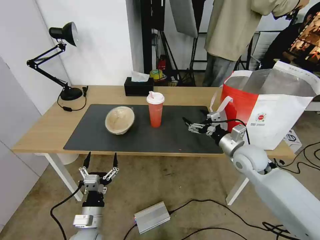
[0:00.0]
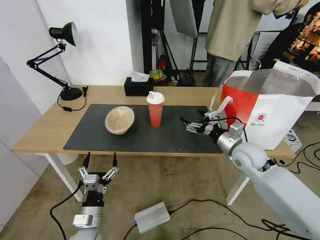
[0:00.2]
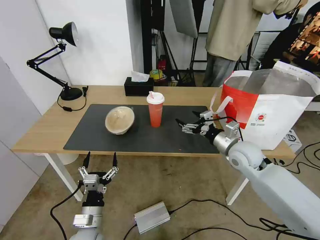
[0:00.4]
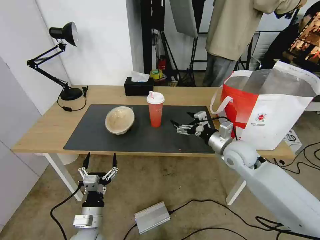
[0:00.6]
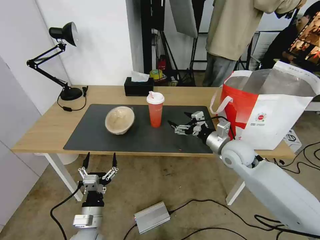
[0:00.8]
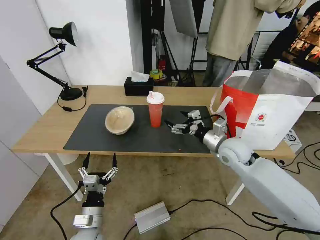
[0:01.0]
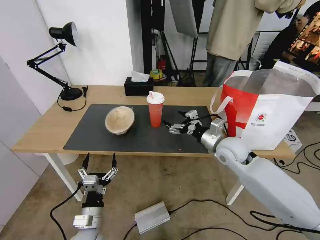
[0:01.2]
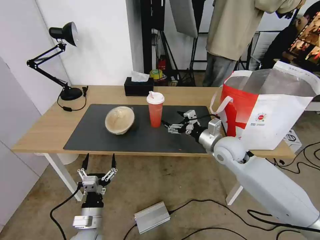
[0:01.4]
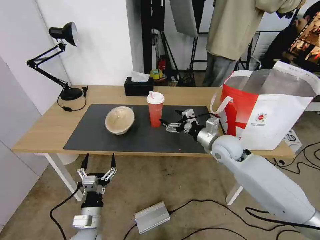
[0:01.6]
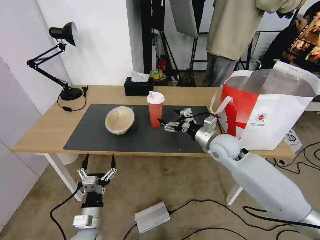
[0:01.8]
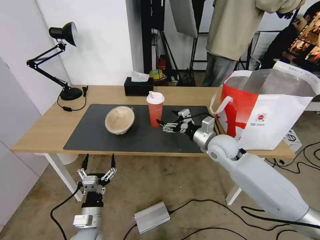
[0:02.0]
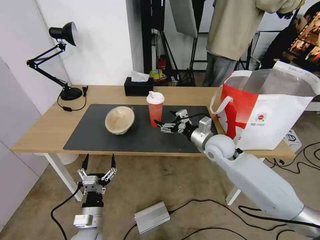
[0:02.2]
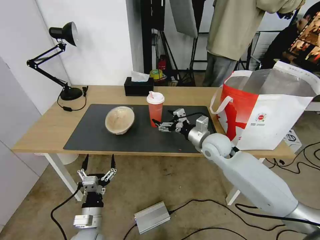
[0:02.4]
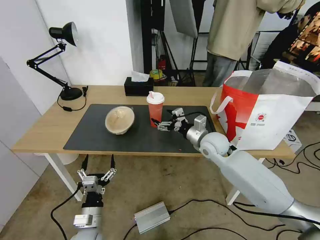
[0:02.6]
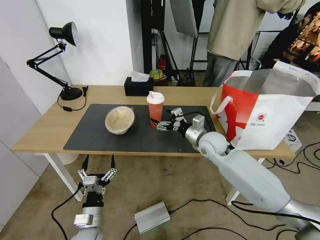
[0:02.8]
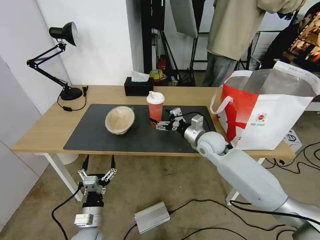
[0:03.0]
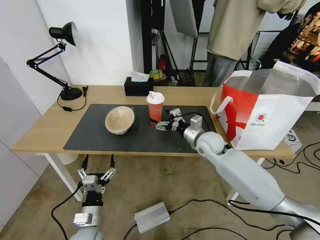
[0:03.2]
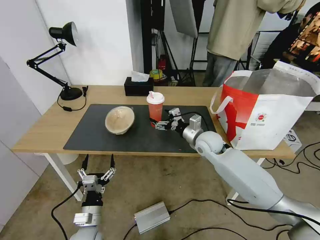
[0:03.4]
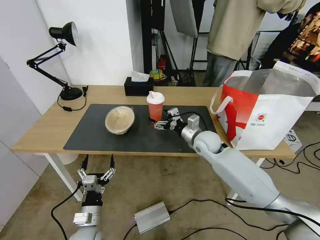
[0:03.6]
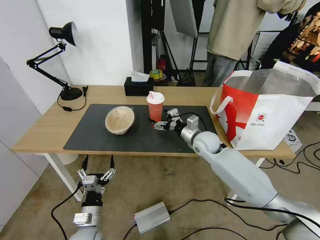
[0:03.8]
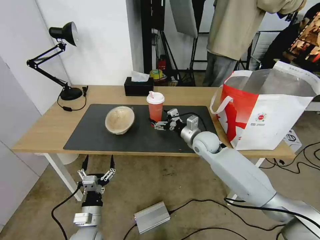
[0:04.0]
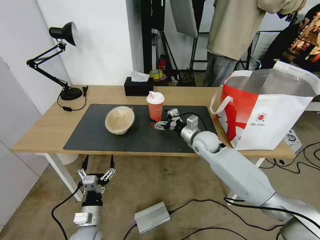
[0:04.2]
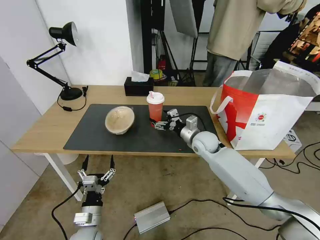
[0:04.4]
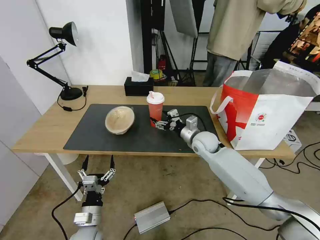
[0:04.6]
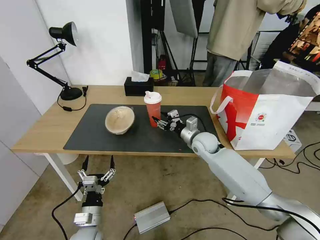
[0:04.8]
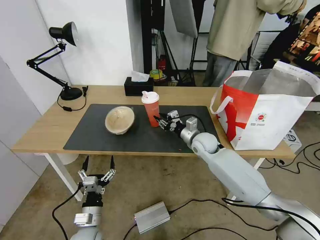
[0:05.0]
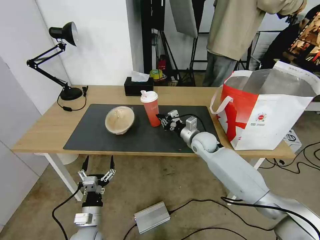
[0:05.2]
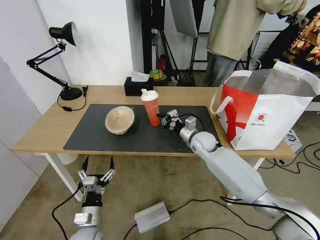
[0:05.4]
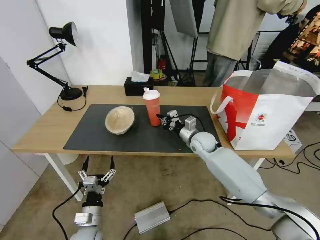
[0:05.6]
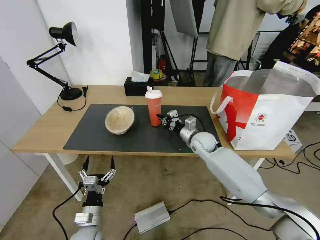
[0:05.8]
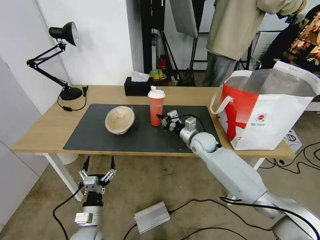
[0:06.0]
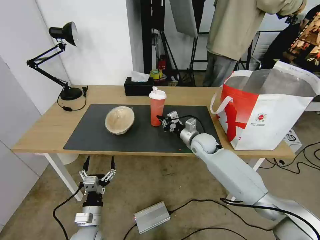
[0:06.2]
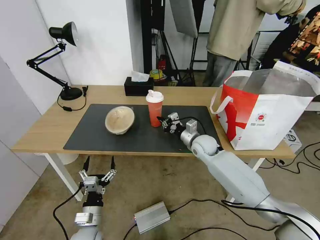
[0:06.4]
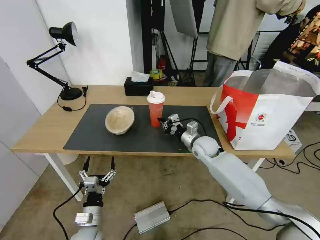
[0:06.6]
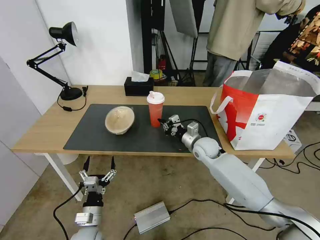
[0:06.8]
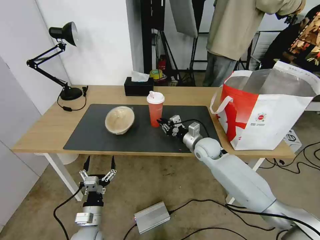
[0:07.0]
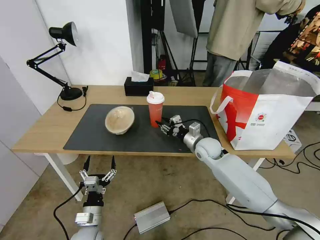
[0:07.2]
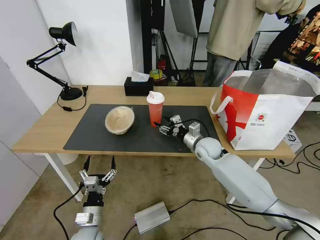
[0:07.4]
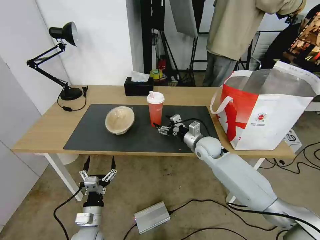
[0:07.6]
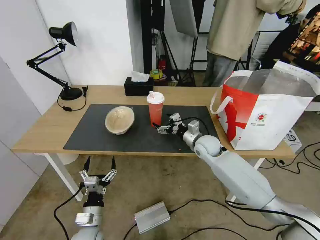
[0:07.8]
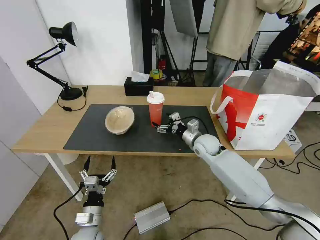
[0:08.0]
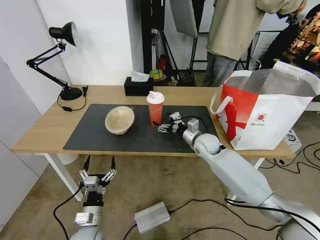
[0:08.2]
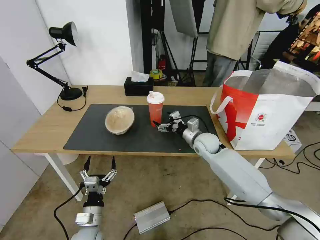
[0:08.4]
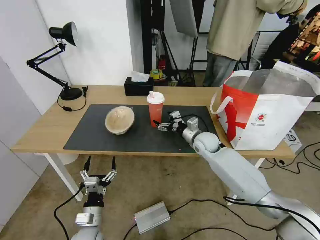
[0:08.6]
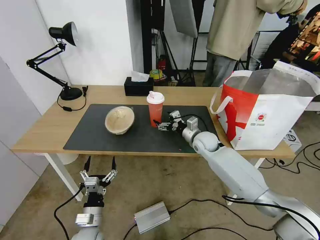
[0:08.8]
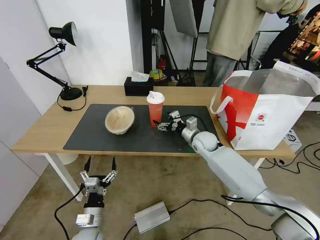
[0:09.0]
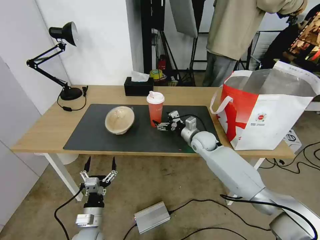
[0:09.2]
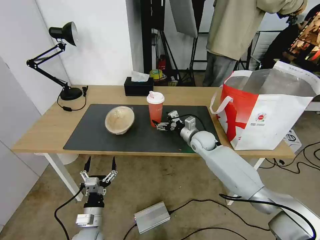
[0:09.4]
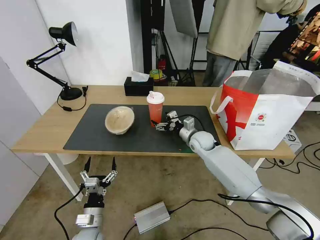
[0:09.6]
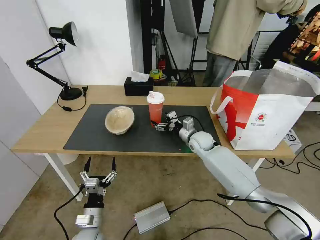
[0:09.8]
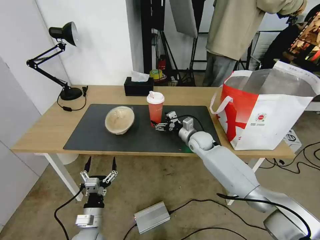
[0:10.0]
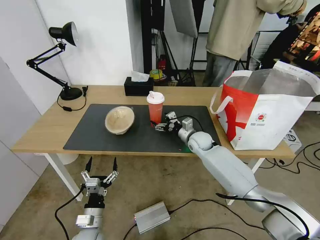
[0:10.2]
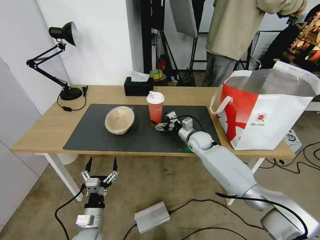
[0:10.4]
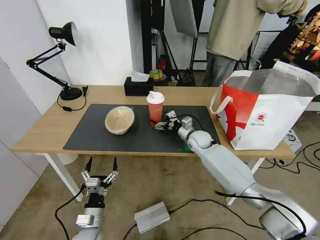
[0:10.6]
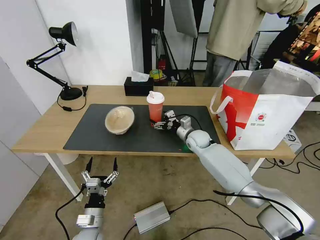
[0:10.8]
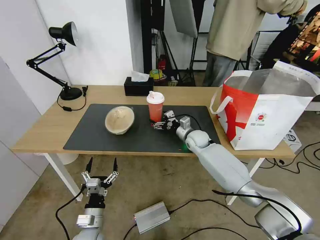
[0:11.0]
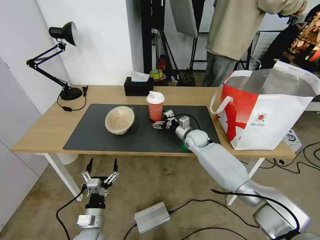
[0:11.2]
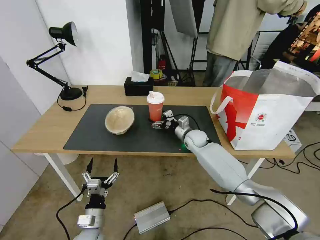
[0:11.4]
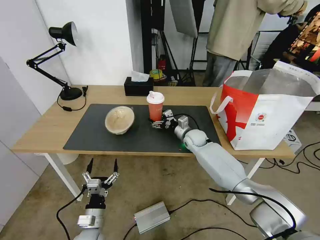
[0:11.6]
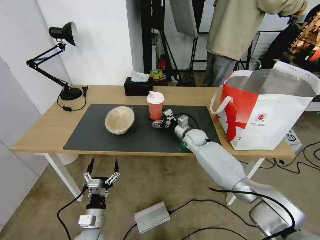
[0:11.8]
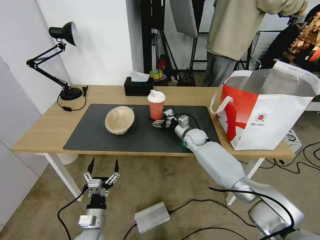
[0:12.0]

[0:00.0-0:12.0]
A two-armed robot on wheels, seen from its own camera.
Task of the whole recording: Pick up the trash from the table and place it into the takeout bag.
0:00.0 to 0:01.6: The right gripper moves to the left, roughly 5 cm.
0:01.6 to 0:03.0: The right gripper moves some 5 cm.
0:03.0 to 0:04.4: There are only small adjustments of the grippers.
0:04.4 to 0:06.0: The right gripper closes up.
0:06.0 to 0:07.6: The right gripper opens up.
0:07.6 to 0:10.4: The grippers make only small movements.
0:10.4 to 0:12.0: The grippers stay close to where they were, moving slightly.

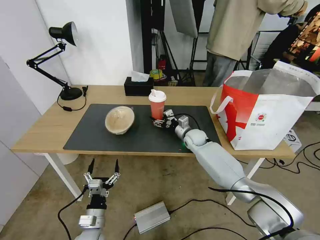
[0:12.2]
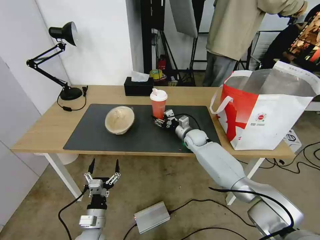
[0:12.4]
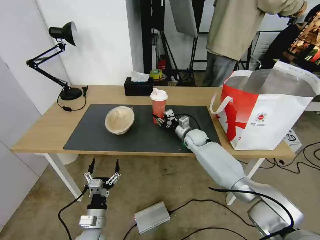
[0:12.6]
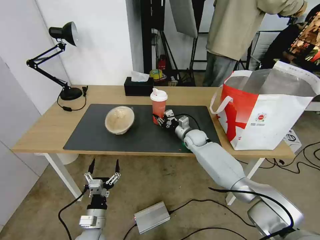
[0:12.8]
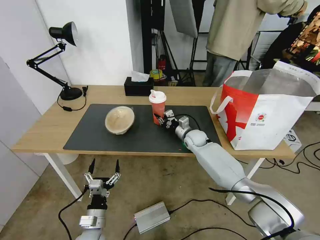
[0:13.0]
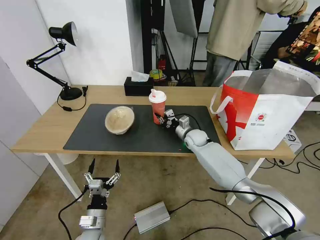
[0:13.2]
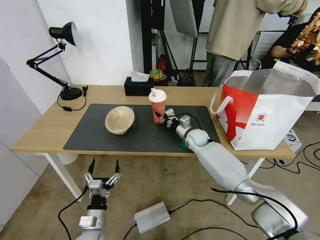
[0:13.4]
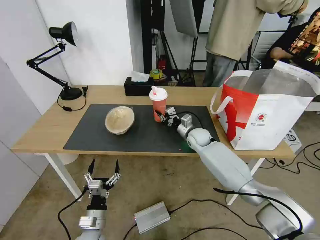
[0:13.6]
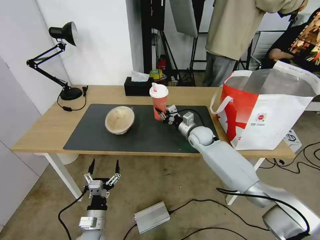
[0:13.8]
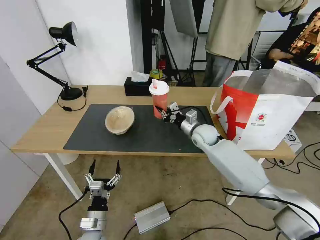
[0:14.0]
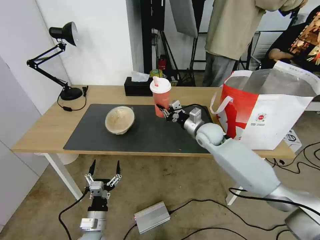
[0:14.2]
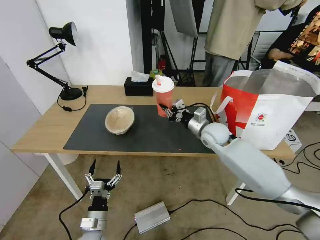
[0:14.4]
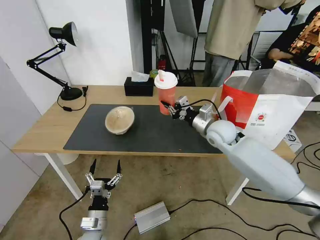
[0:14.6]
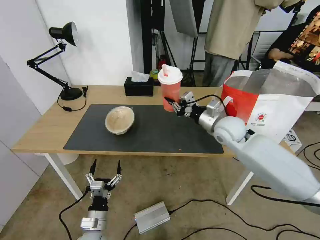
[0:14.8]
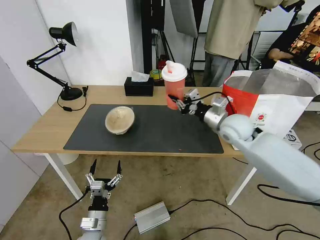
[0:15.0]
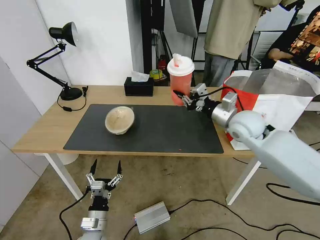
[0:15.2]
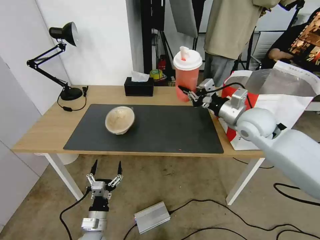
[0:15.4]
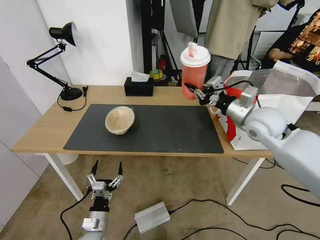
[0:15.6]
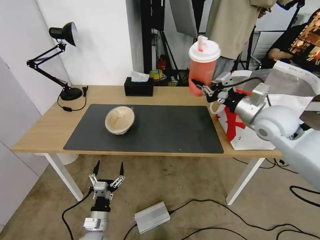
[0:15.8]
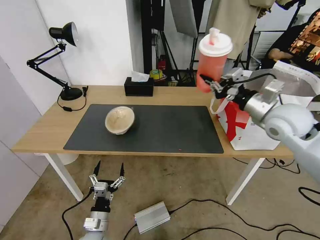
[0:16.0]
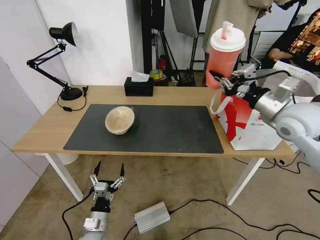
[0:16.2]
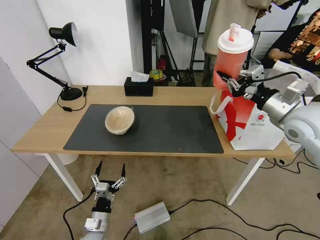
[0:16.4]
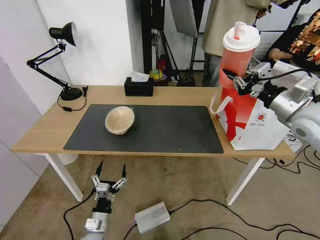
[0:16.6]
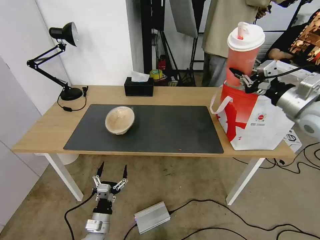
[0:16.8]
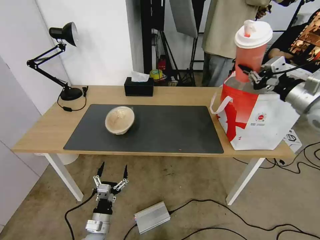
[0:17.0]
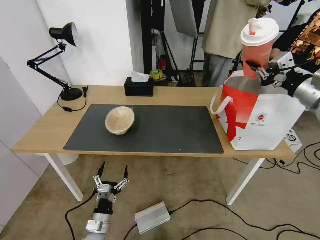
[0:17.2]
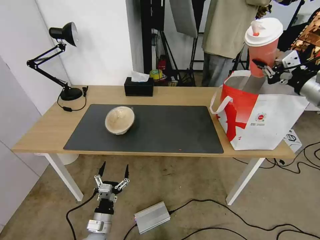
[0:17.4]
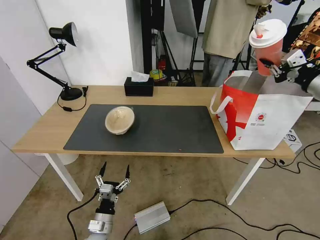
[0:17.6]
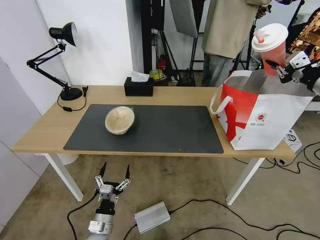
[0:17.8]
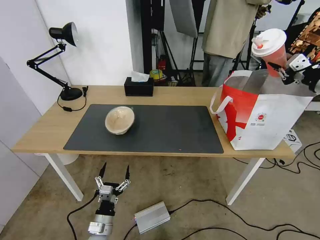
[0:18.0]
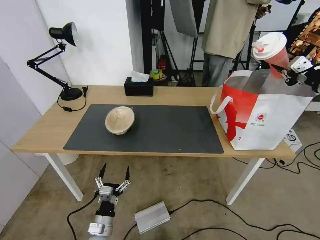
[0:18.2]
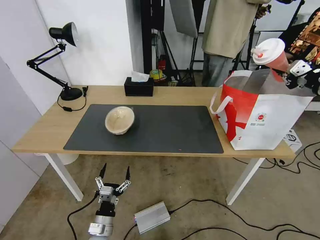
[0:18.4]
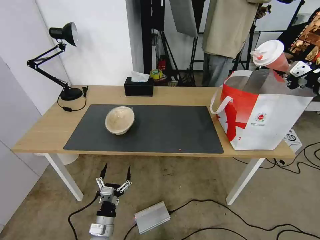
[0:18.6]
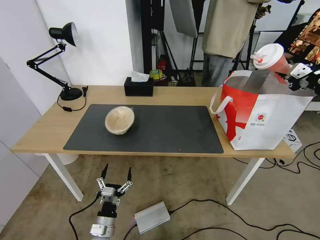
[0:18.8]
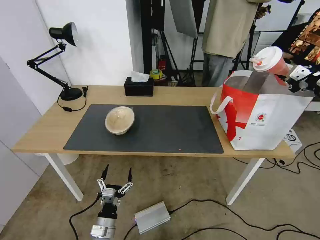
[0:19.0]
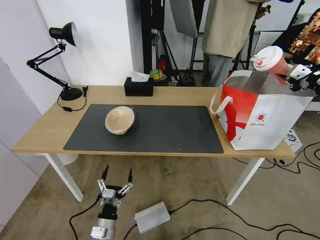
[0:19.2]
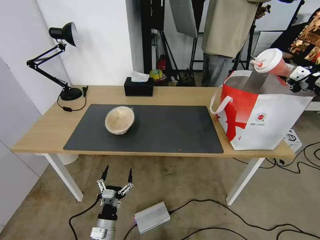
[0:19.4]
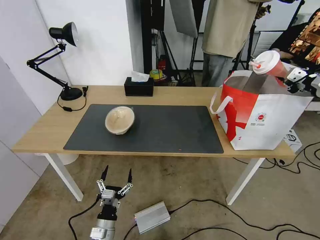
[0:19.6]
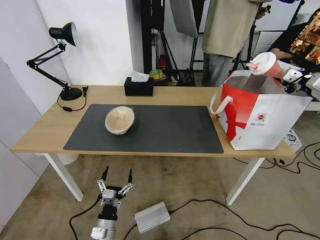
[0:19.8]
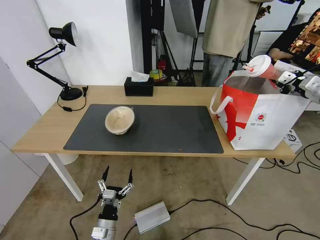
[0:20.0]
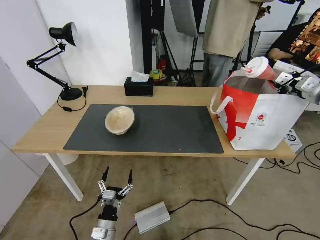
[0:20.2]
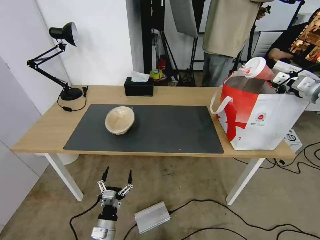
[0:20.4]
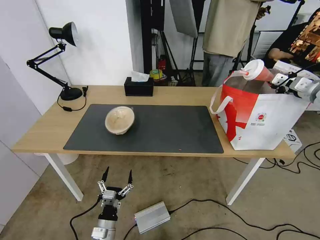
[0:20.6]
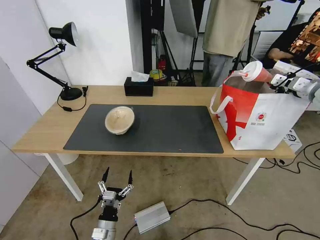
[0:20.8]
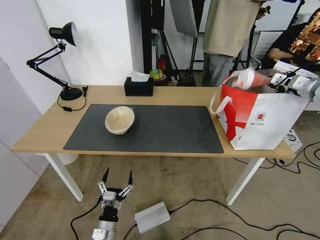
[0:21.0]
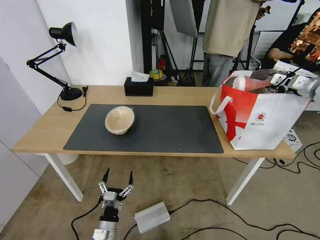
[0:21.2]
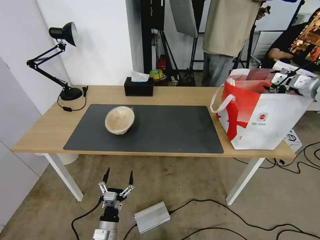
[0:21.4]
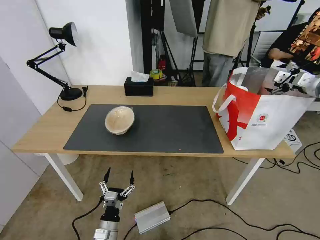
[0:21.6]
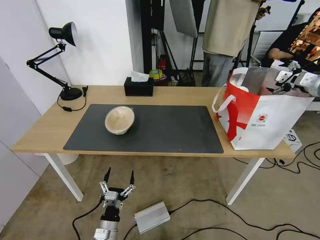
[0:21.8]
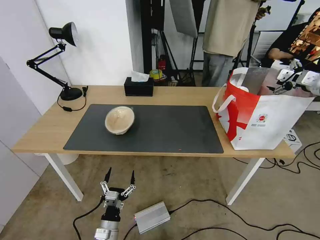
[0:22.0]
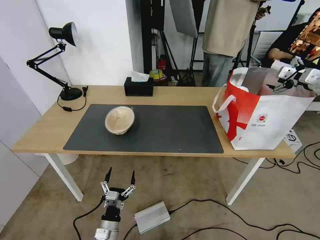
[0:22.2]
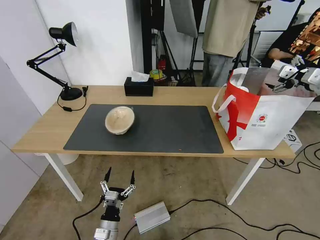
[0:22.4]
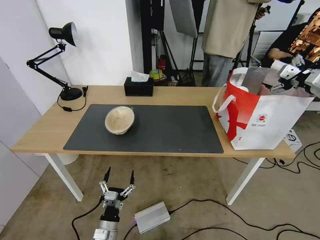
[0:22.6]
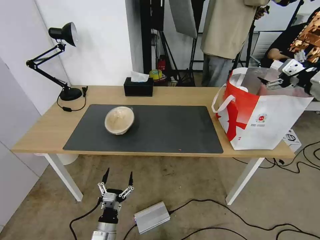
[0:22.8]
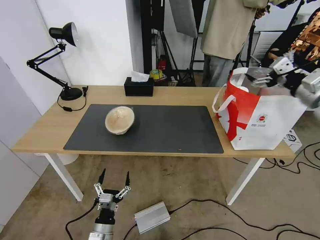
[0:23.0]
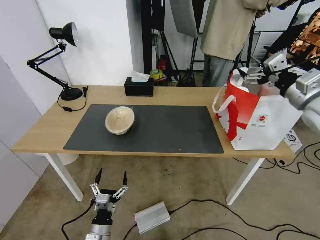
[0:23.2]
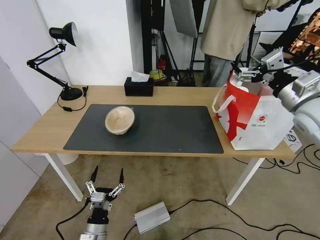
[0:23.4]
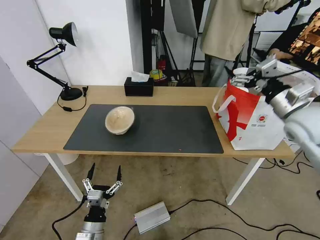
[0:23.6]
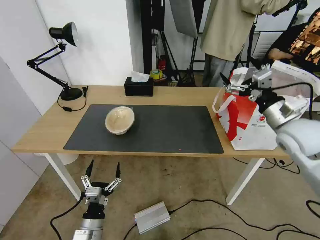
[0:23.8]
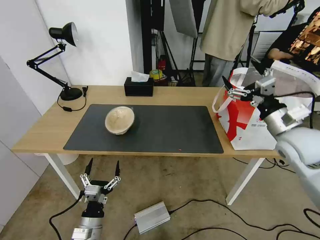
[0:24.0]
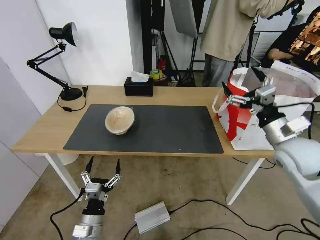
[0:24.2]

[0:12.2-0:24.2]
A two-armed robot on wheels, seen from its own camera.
Task of the whole recording: Pick up the trash from the table and place it into the takeout bag.
0:12.2 to 0:13.8: The right gripper closes.
0:13.8 to 0:15.2: The right gripper travels upward, to the right and backward by about 20 cm.
0:15.2 to 0:16.6: The right gripper is displaced to the right, upward and backward by some 15 cm.
0:16.6 to 0:18.2: The right gripper travels to the right by about 10 cm.
0:18.2 to 0:19.8: The right gripper changes place by about 5 cm.
0:19.8 to 0:21.2: The right gripper shifts about 5 cm forward, and opens its fingers.
0:21.2 to 0:22.6: The right gripper moves backward, approximately 5 cm, and opens its fingers.
0:22.6 to 0:24.2: The left gripper is displaced upward by approximately 5 cm; the right gripper shifts roughly 20 cm to the left, downward and backward.
